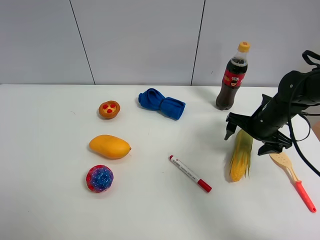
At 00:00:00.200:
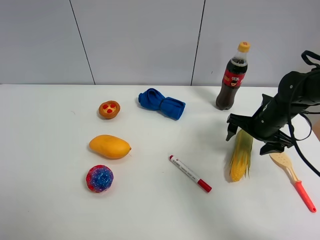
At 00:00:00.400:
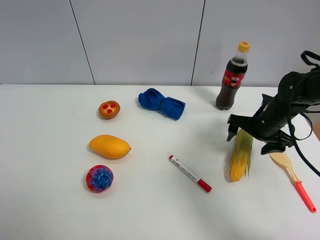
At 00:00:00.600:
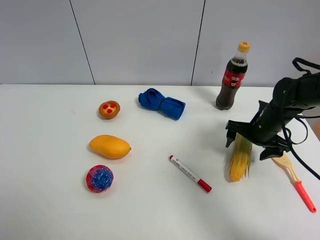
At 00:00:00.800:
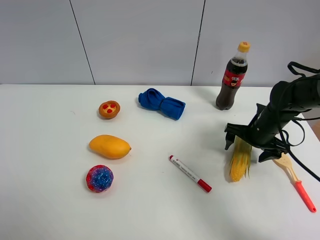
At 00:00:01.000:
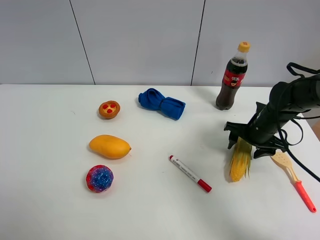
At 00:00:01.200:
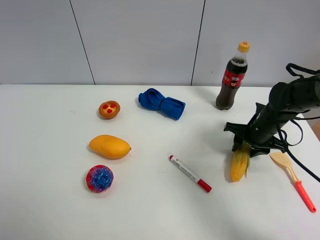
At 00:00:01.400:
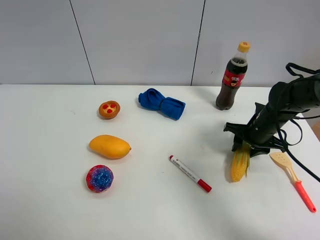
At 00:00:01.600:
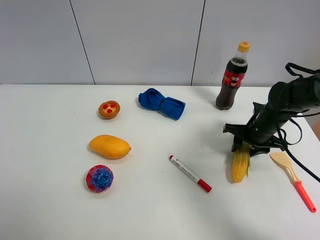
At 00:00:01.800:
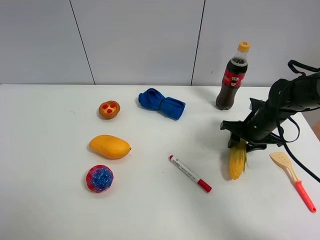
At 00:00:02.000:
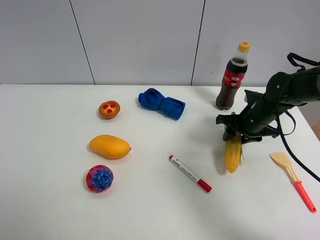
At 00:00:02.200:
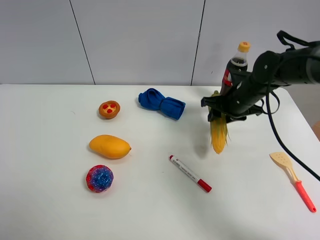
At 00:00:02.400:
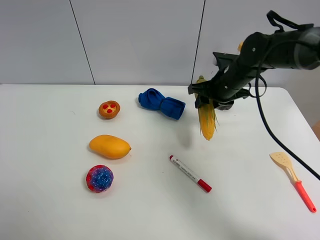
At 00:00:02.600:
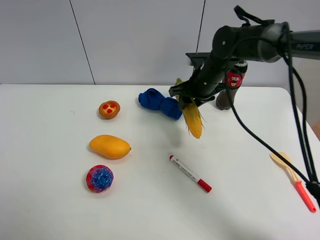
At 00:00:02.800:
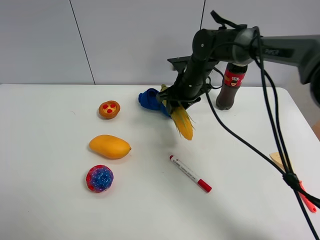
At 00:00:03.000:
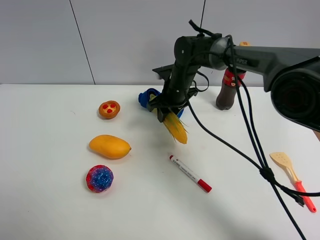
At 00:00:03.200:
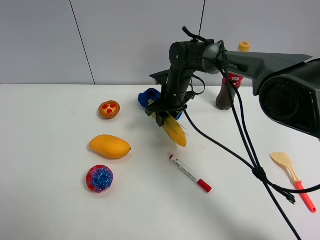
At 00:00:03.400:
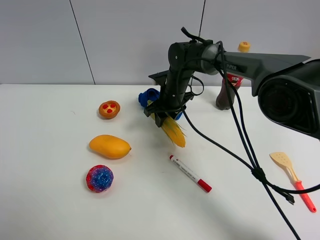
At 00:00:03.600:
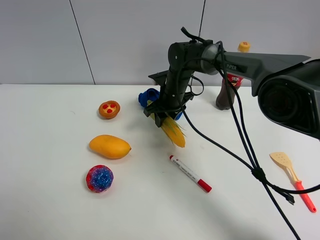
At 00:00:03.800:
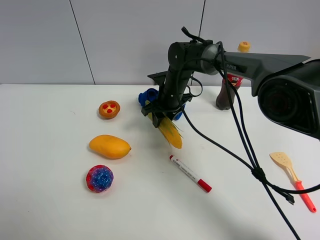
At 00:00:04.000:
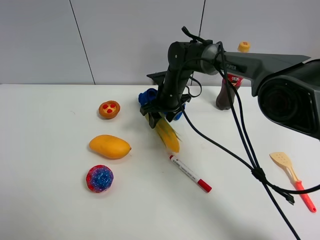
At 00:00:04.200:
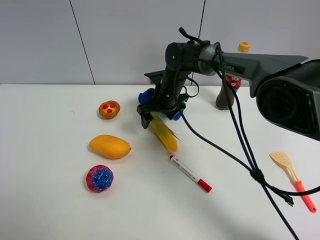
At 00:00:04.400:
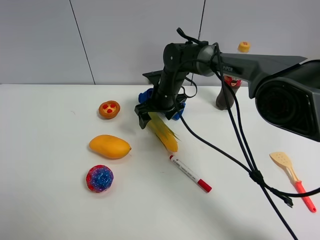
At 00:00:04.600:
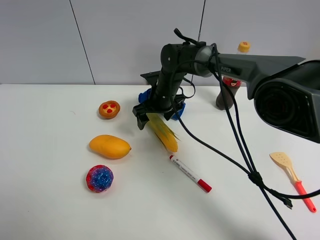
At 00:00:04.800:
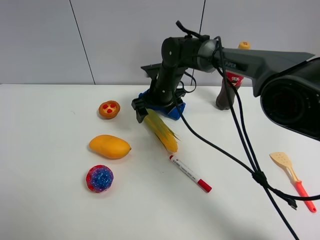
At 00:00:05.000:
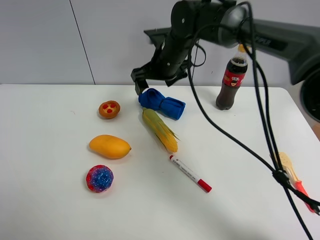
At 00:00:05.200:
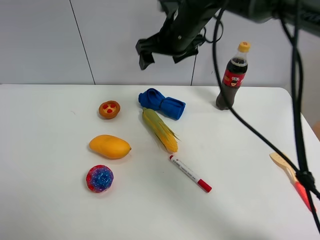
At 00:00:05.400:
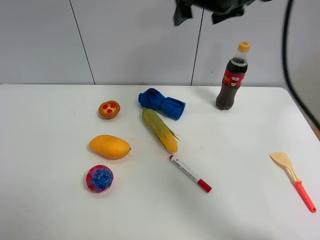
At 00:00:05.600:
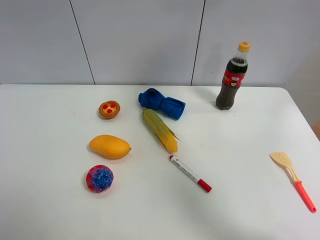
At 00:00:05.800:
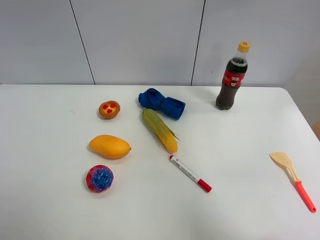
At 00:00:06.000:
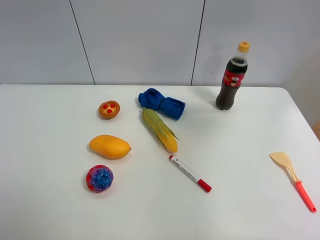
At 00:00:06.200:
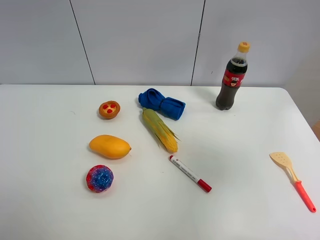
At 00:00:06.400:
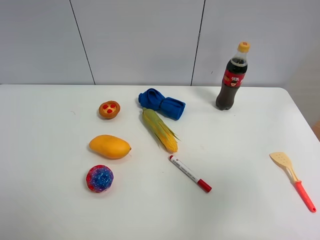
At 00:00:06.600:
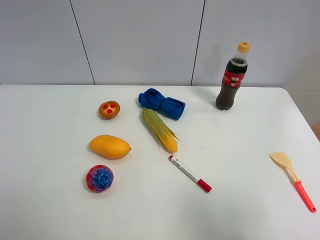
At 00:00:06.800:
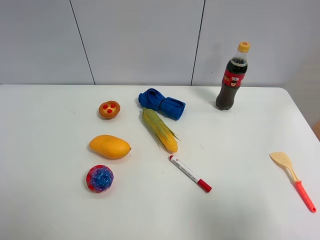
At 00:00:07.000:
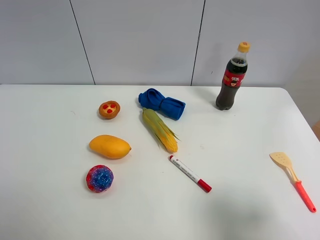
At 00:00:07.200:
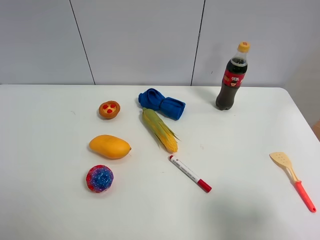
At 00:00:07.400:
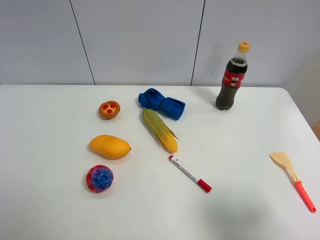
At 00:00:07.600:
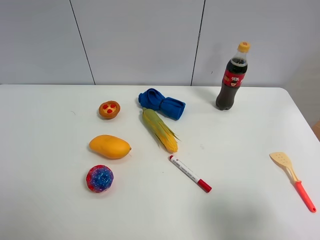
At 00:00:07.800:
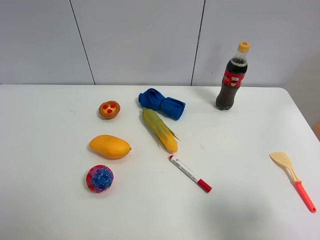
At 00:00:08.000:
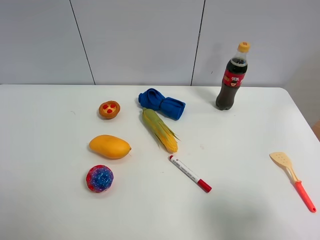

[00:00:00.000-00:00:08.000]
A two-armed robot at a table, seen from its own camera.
Task of the whole recording: the gripper move the object.
Step, 00:00:01.400 to 00:00:04.200: Place the corn on the table with the right gripper.
00:00:00.000 to 00:00:01.600: The right gripper closes up.
00:00:01.600 to 00:00:03.200: The right gripper is displaced to the left and forward by about 25 cm.
00:00:03.200 to 00:00:04.800: The right gripper opens.
00:00:04.800 to 00:00:06.400: The right gripper travels backward, to the right and upward by approximately 50 cm.
00:00:06.400 to 00:00:08.000: The right gripper moves downward, roughly 10 cm.
